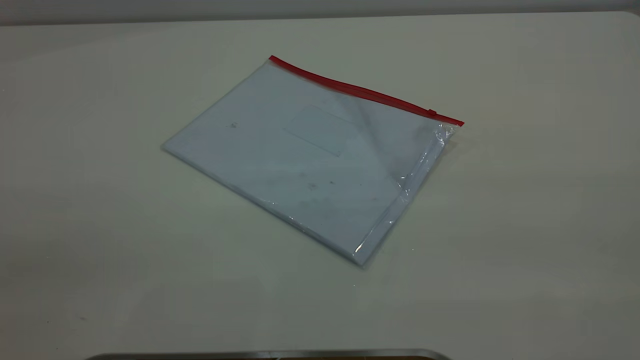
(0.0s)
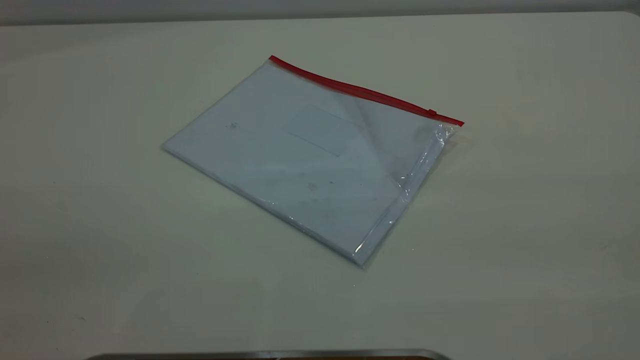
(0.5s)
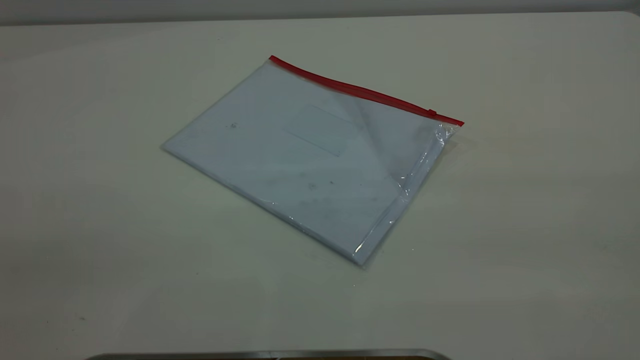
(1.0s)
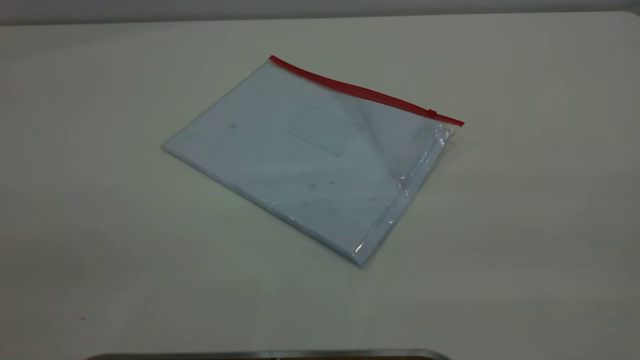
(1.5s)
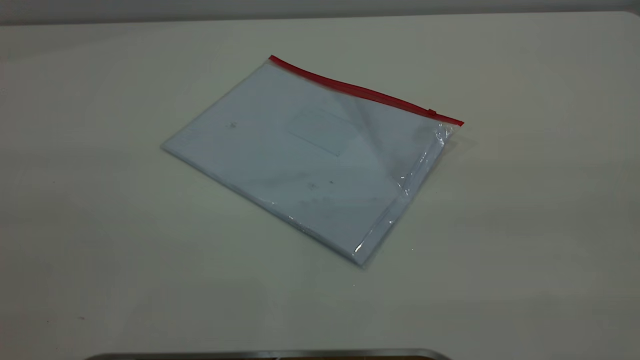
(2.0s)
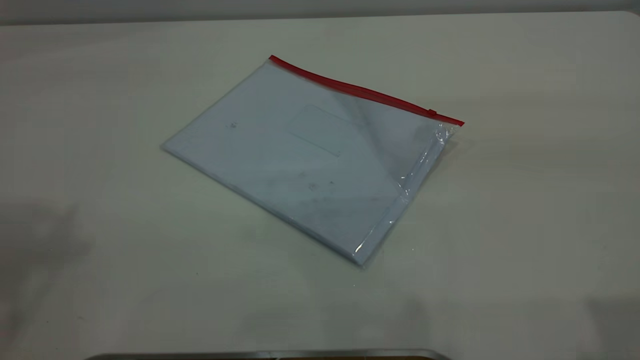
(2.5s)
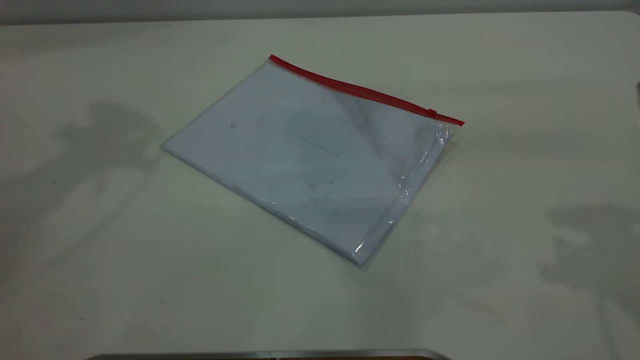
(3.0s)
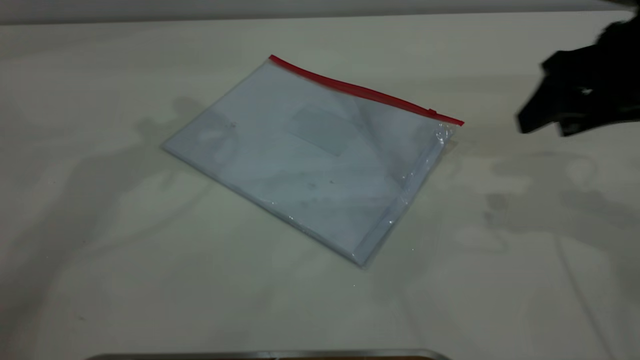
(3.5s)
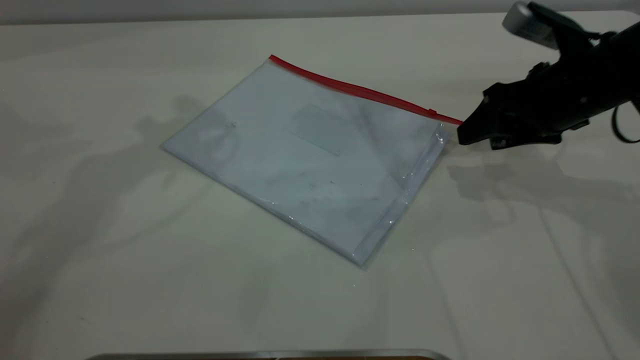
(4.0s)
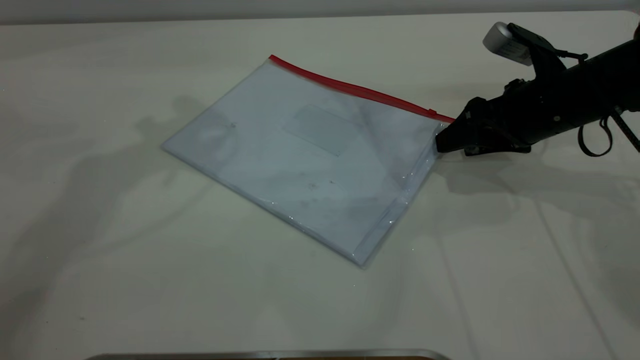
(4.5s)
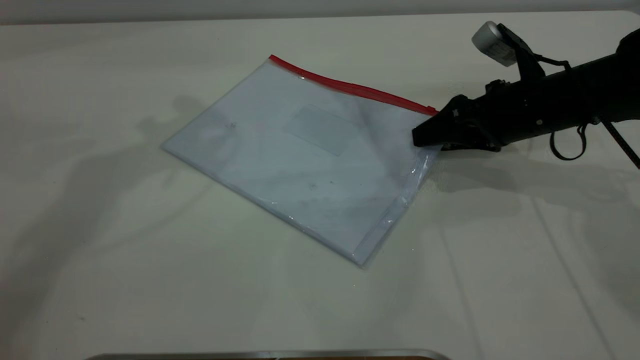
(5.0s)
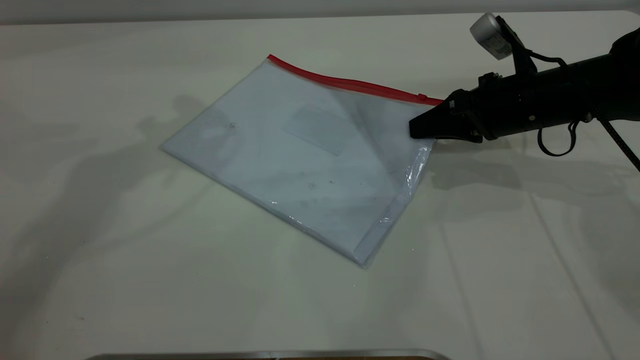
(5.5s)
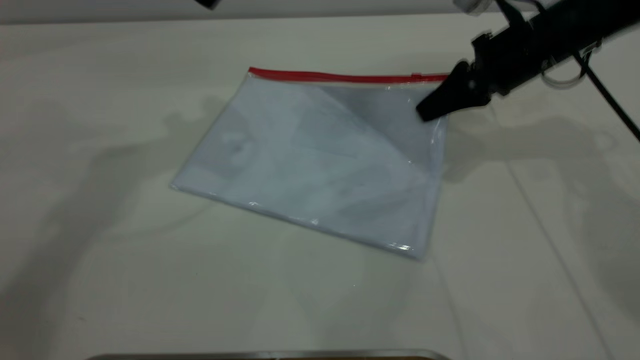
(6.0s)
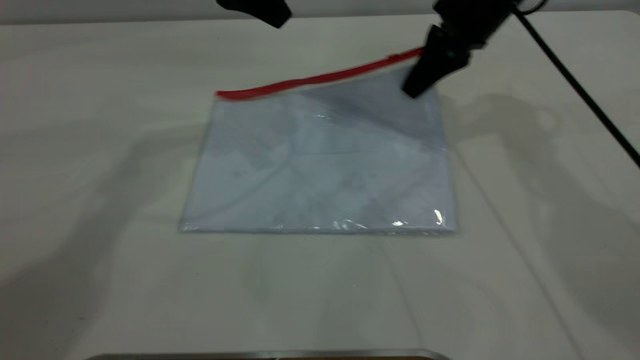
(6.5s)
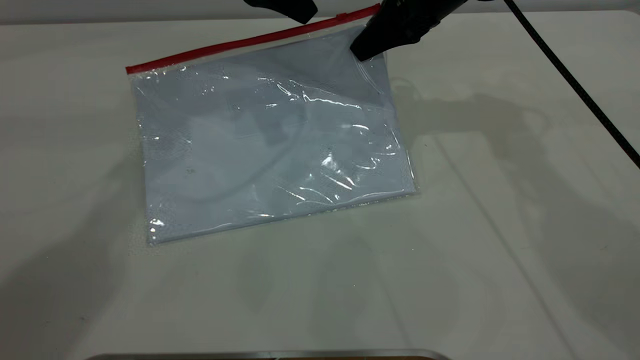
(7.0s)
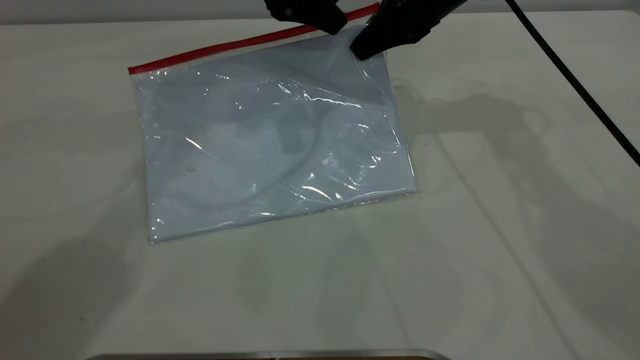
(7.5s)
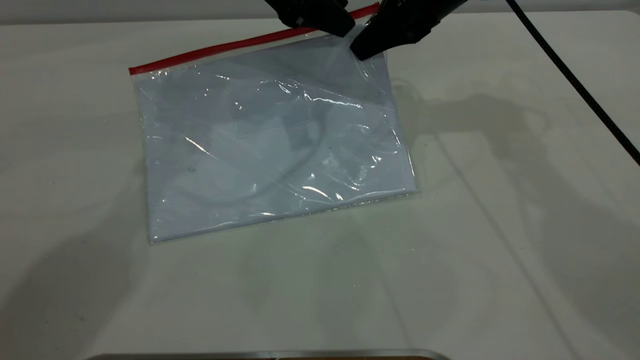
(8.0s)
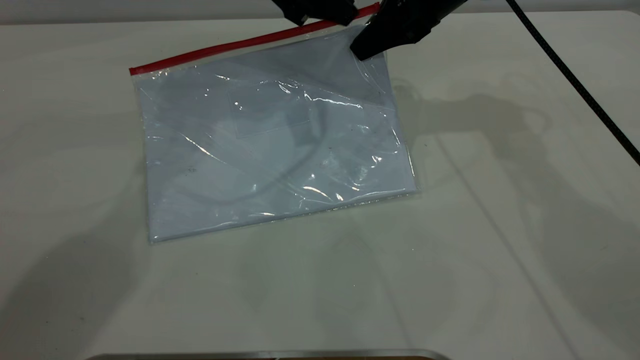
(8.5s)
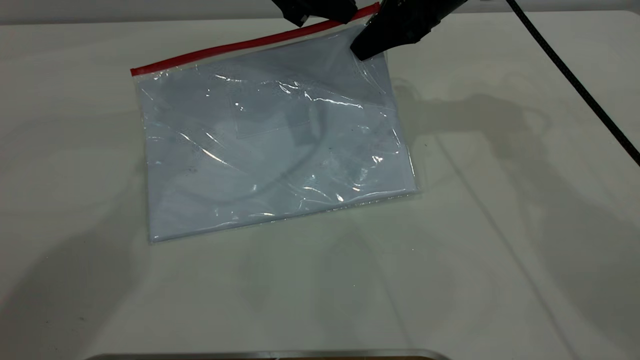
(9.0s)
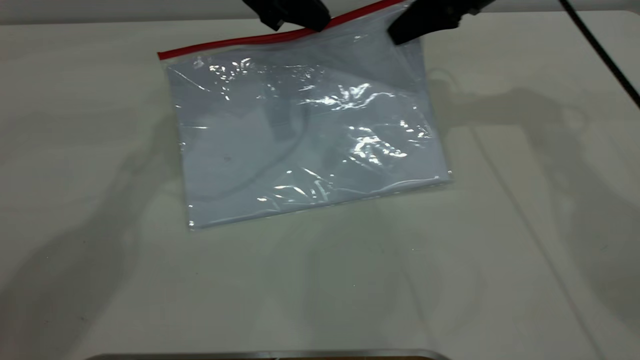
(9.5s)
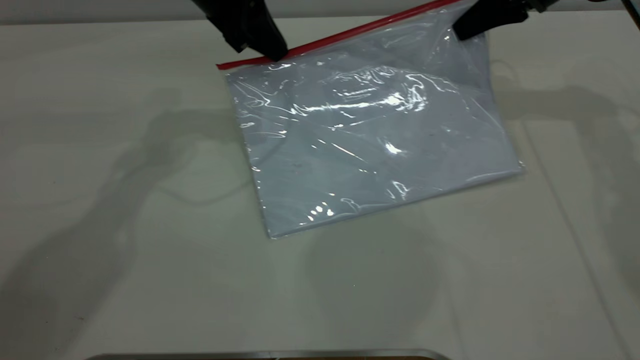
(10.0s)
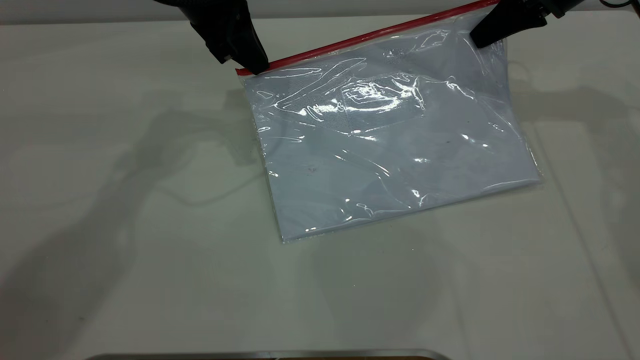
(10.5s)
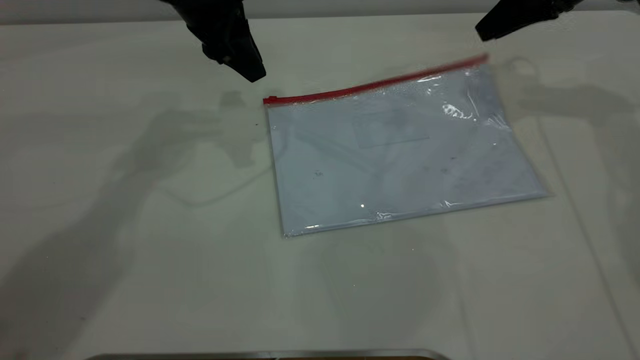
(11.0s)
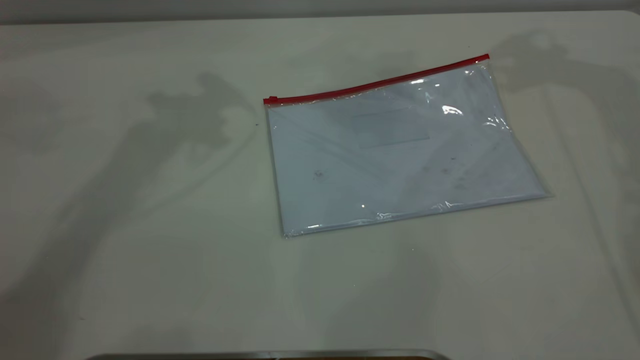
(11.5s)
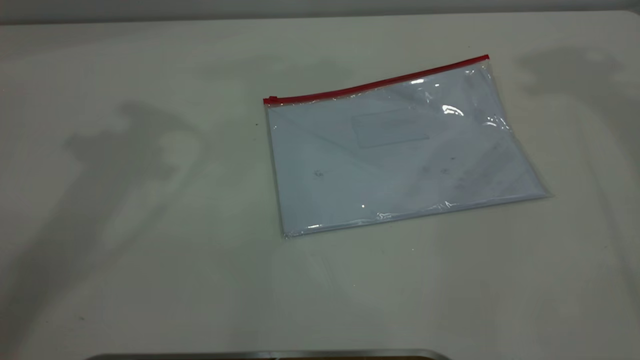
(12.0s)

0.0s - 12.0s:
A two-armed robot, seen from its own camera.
Step, 0.0s - 6.0s: Pick up the transparent plastic bag with the right gripper.
Step, 6.5s - 10.5s: Pulling up the zipper on the transparent plastic bag with the left gripper to close it.
Step, 11.0s - 11.5s: Place the transparent plastic bag.
2.0s - 4.0s: The right gripper moves forward and downward, approximately 40 cm.
4.0s - 6.0s: The left gripper changes place by roughly 5 cm. The right gripper is displaced forward by approximately 10 cm, and closes.
6.0s - 8.0s: The right gripper goes some 10 cm to the left and upward; the left gripper heads to the right and downward, covering approximately 10 cm.
8.0s - 10.0s: The right gripper shifts about 15 cm to the right; the left gripper ends up approximately 5 cm from where it was, and closes its fingers.
10.0s - 12.0s: Both grippers move upward, roughly 30 cm. The right gripper opens its fingers. Meanwhile the left gripper opens.
